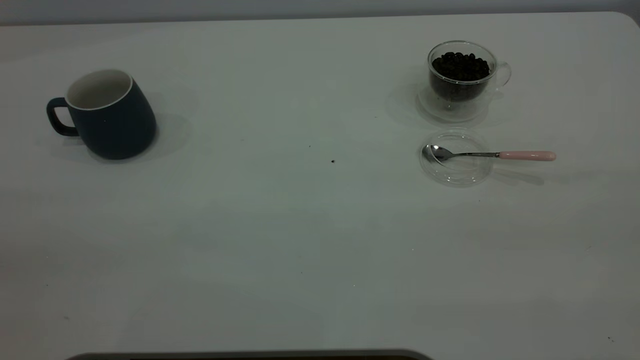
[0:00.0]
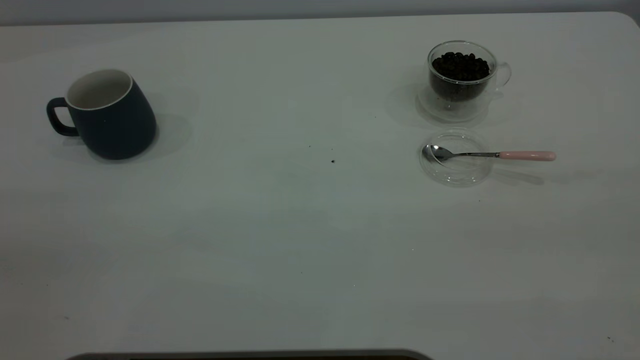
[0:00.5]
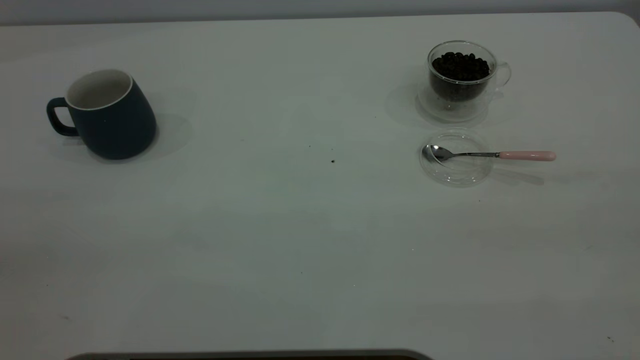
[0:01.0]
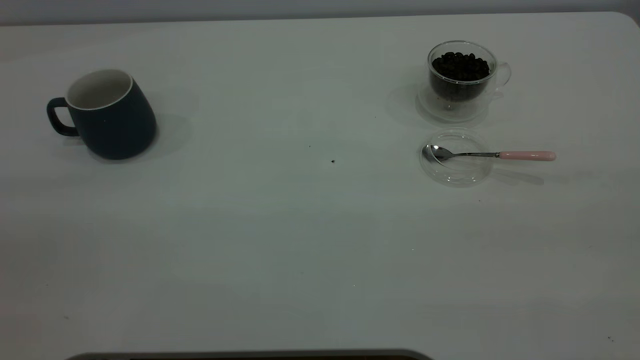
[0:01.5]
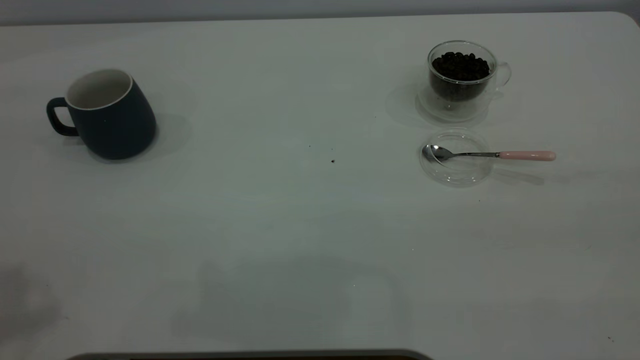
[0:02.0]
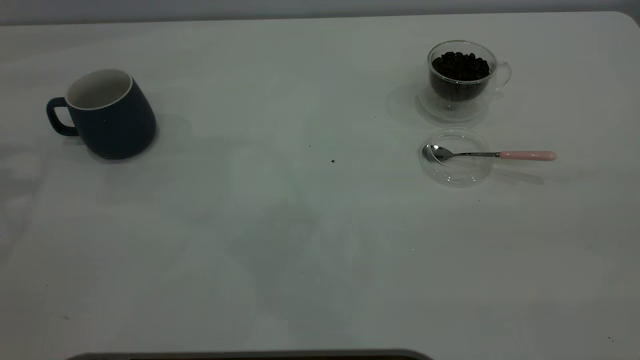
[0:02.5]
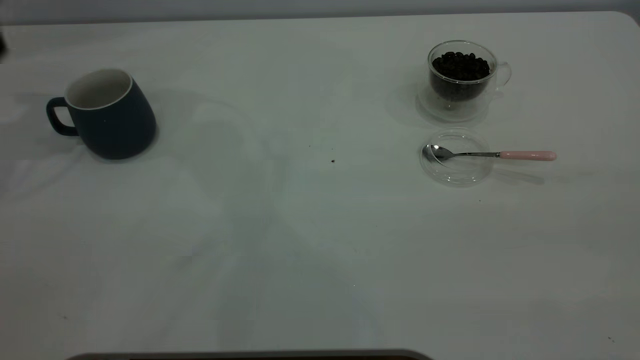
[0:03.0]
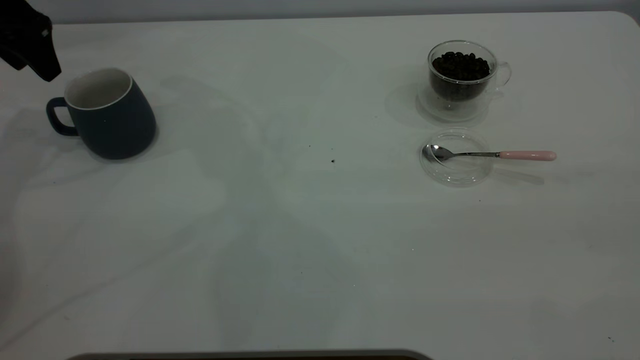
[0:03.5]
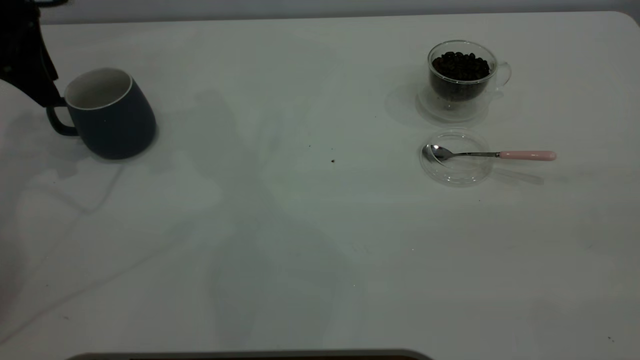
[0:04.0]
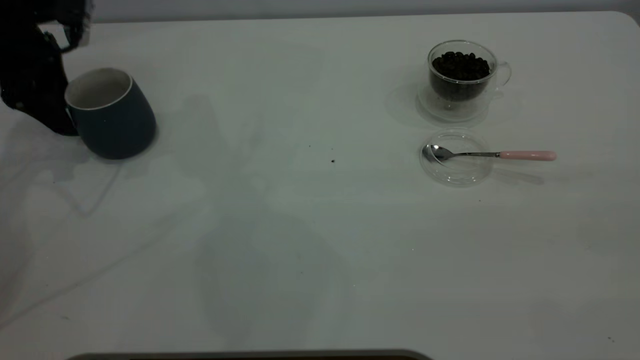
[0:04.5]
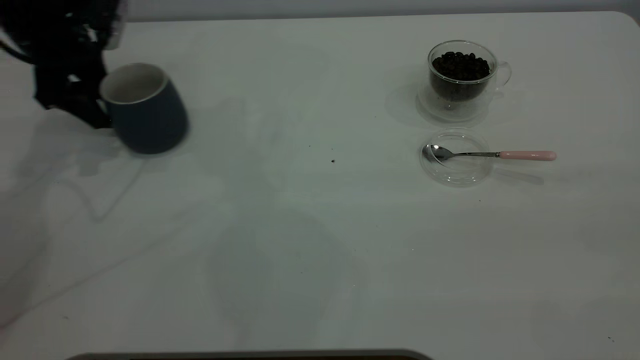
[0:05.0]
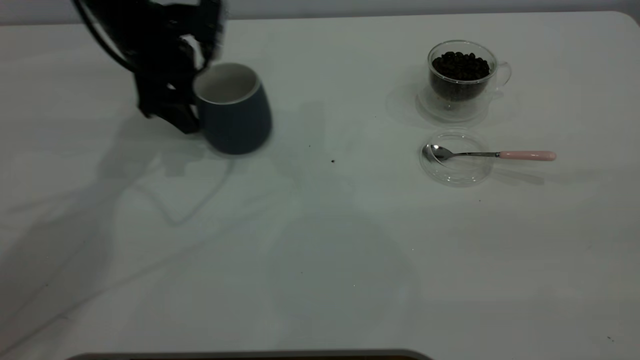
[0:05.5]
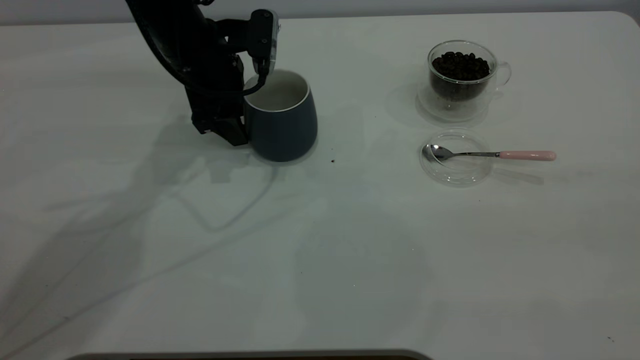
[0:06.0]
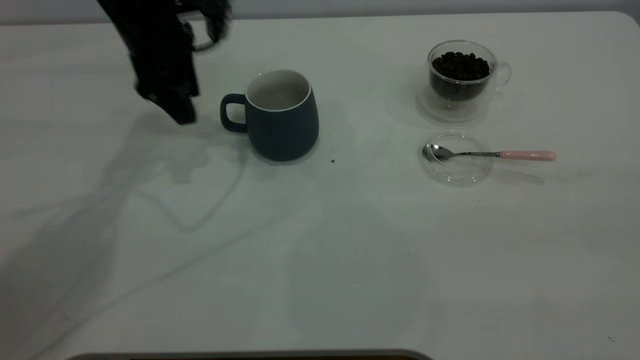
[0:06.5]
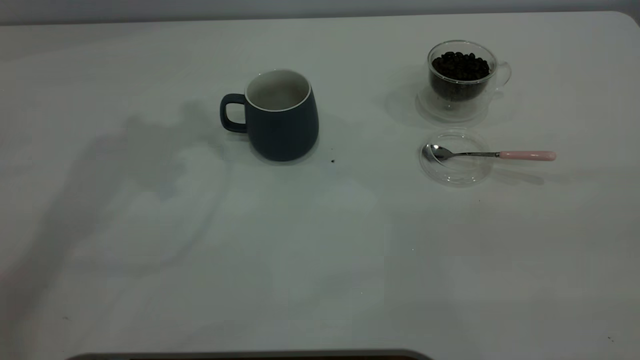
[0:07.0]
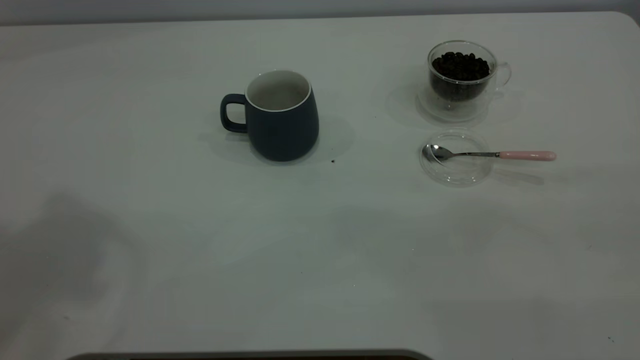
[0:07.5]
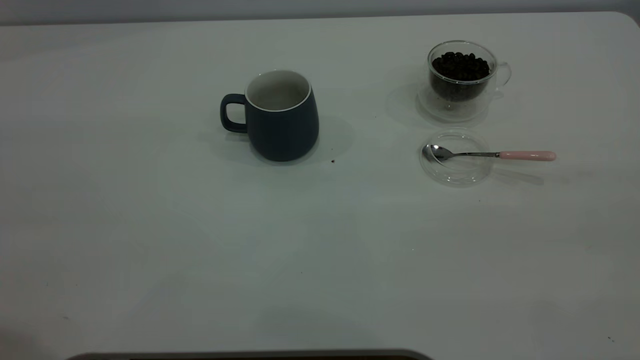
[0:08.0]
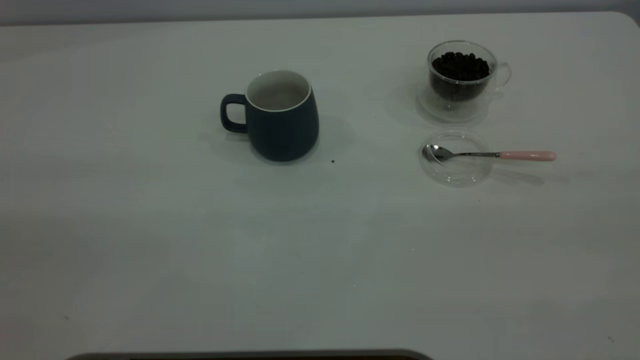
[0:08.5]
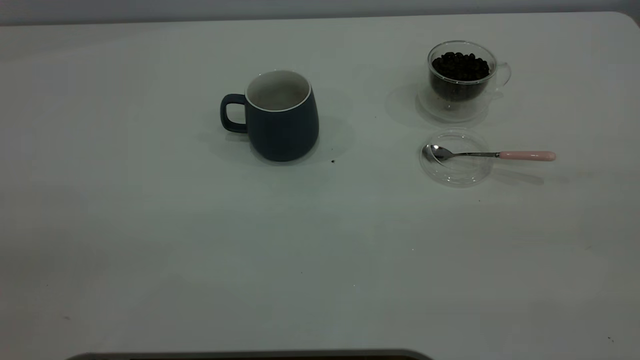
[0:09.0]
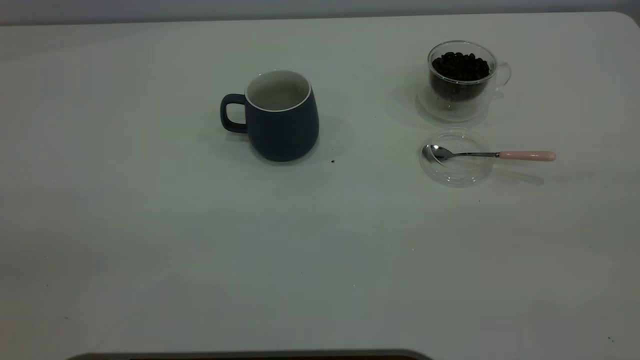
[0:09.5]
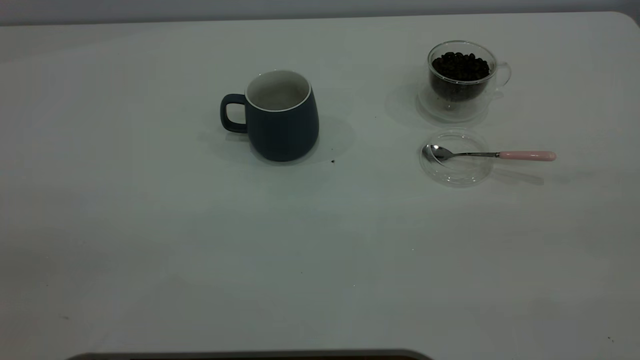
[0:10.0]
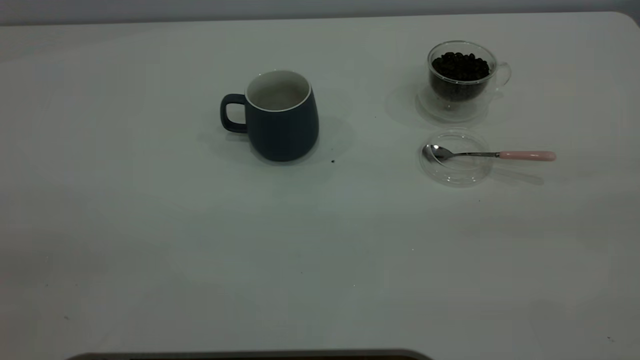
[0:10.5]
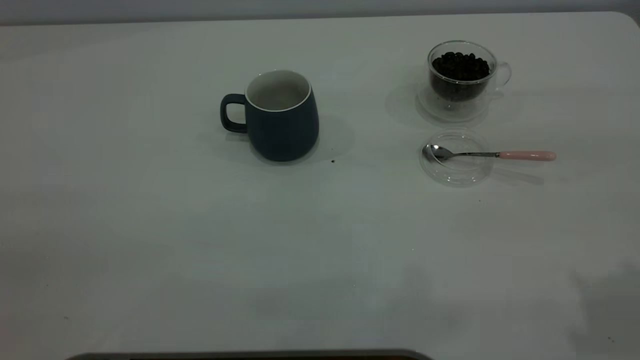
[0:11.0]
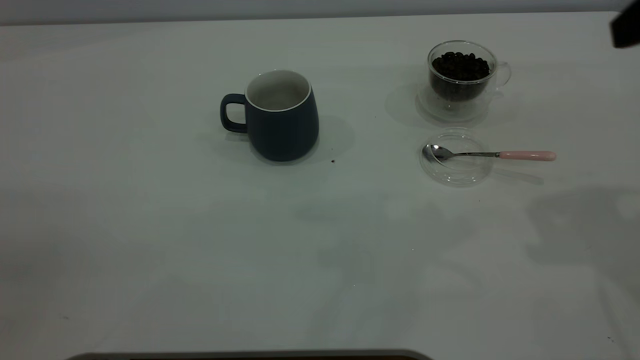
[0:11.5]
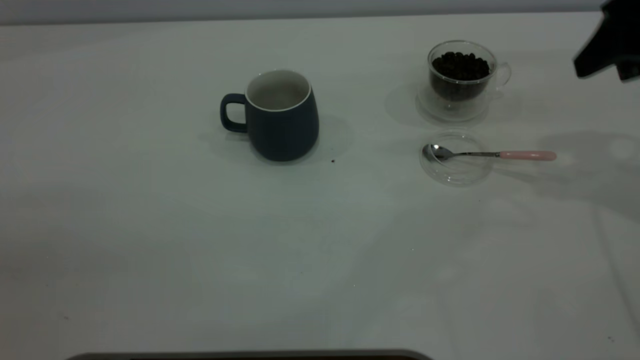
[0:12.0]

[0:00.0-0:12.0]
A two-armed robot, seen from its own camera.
Task of the whole recording: the left gripper place the grey cup in the center of the table, the right gripper take the pink spoon from the cup lid and scoop out the coffee beans from the coffee cup and put them into the grey cup, the right gripper put the spoon back into the cup lid.
Step, 0:00.0 to 0:06.0: Move the cup to the center of view.
0:02.0 to 0:04.0: The left gripper goes some 35 cm forward and downward, and opens.
0:04.0 to 0:06.0: The left gripper goes approximately 20 cm to the right.
0:06.0 to 0:08.0: The left gripper goes approximately 40 cm backward and upward.
0:10.0 to 0:12.0: The right gripper heads forward and downward, covering approximately 35 cm.

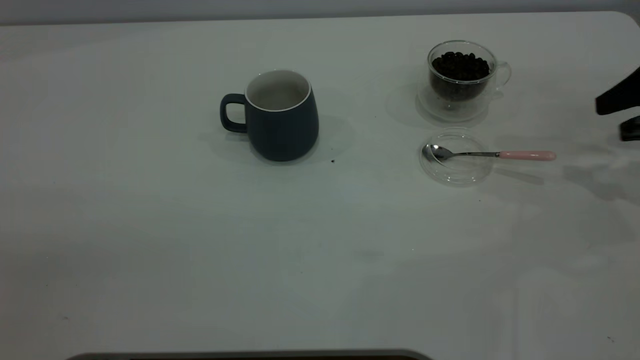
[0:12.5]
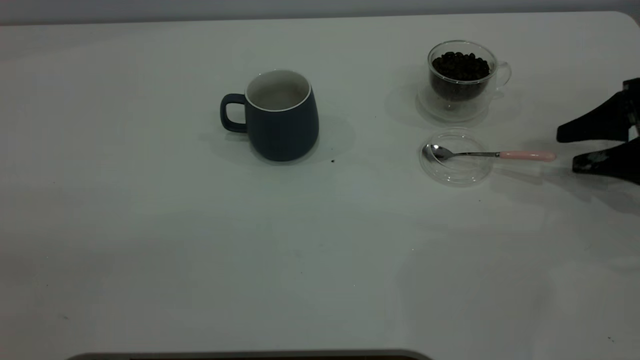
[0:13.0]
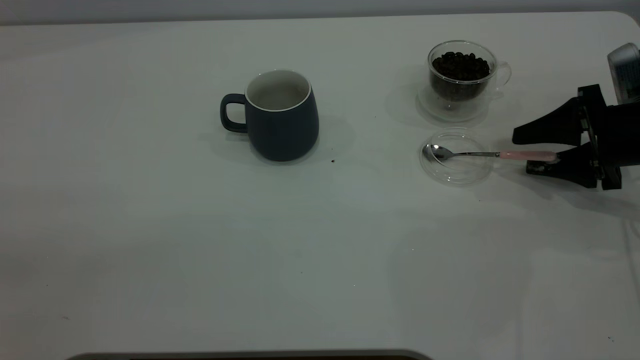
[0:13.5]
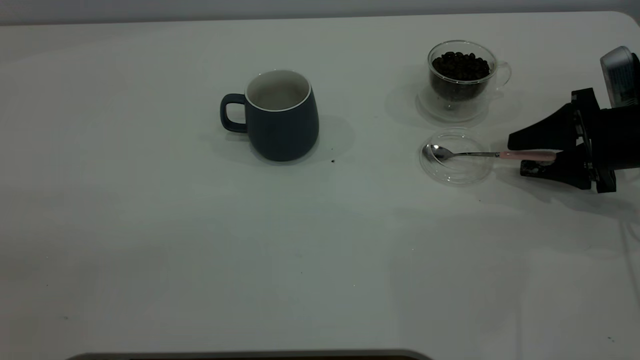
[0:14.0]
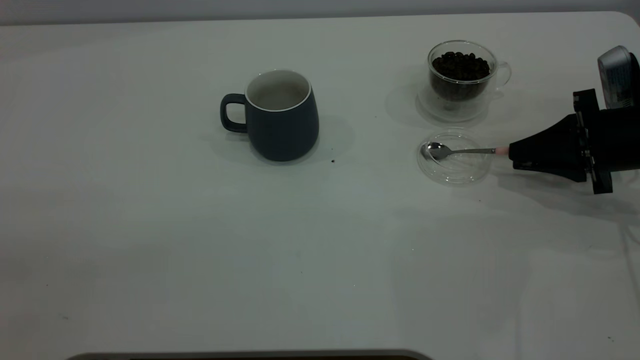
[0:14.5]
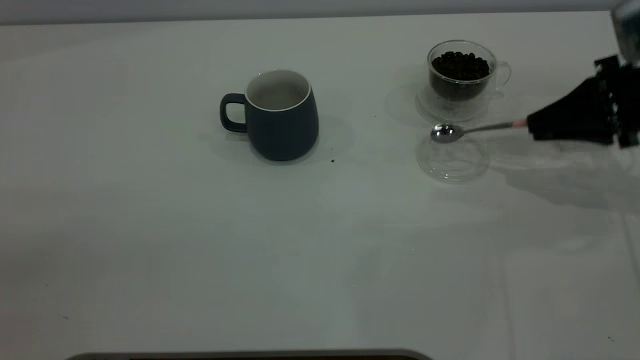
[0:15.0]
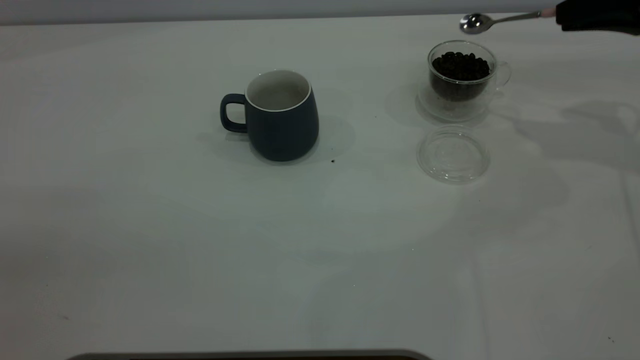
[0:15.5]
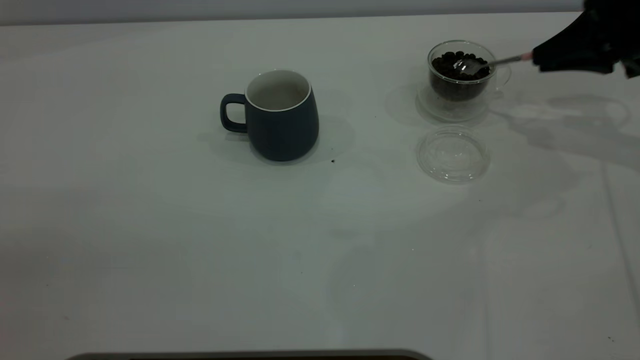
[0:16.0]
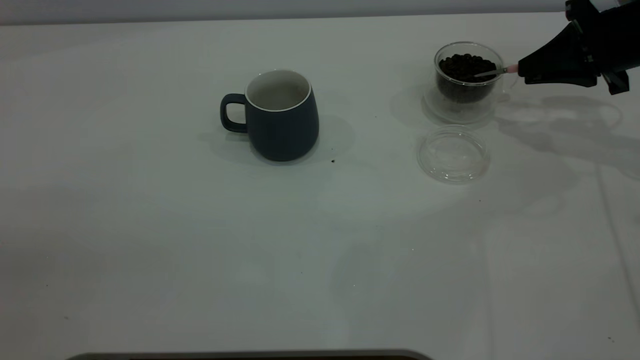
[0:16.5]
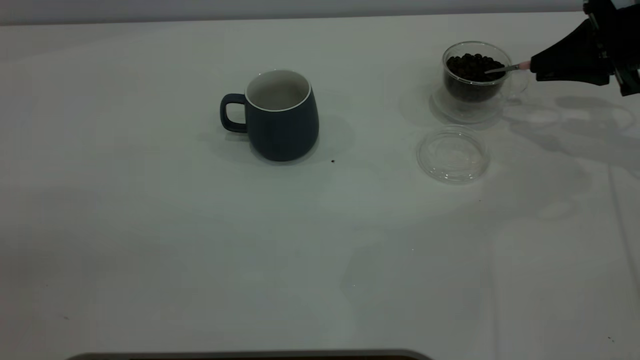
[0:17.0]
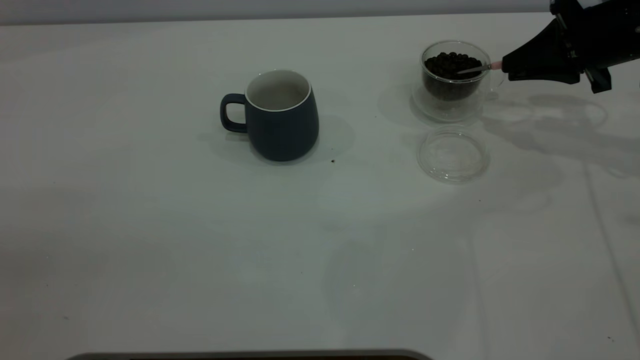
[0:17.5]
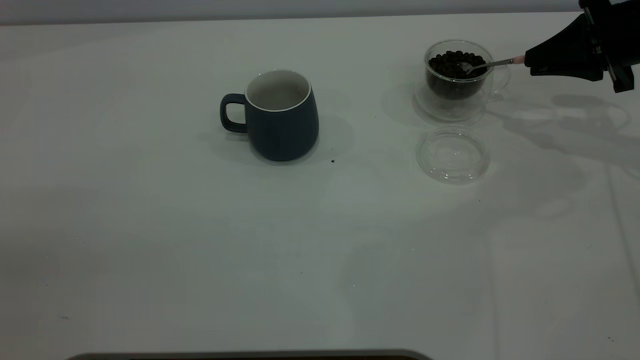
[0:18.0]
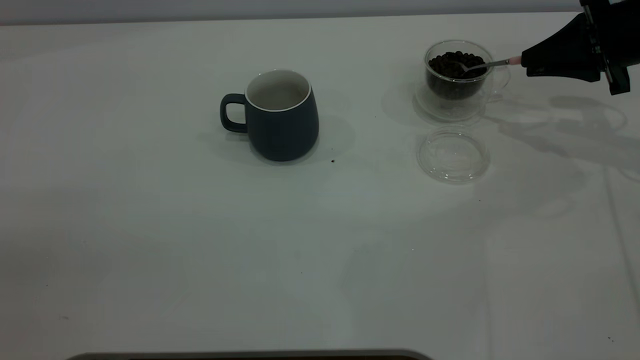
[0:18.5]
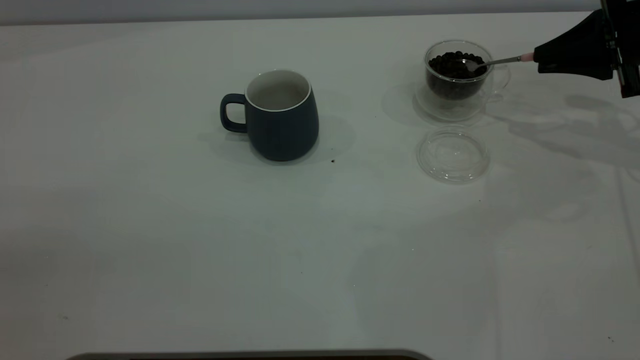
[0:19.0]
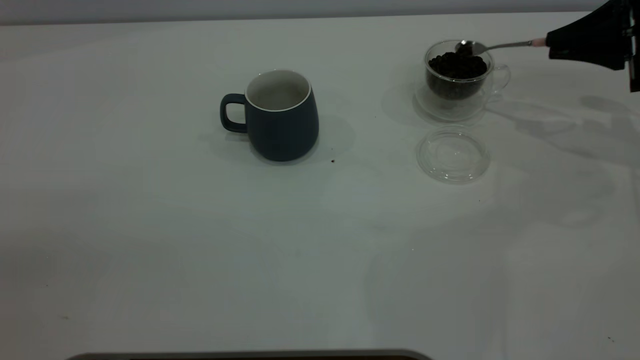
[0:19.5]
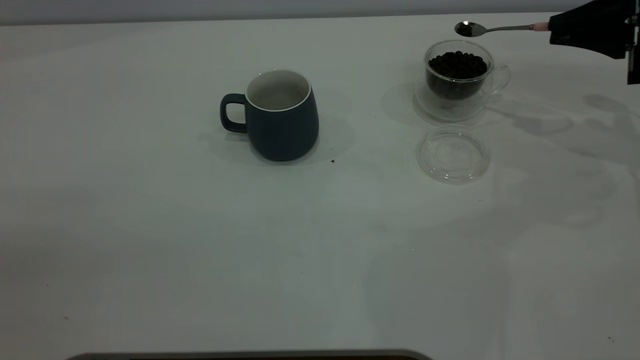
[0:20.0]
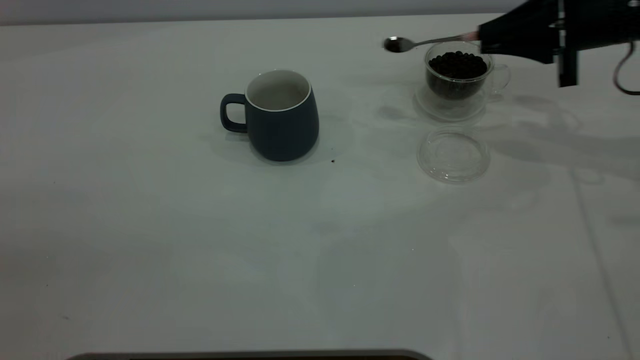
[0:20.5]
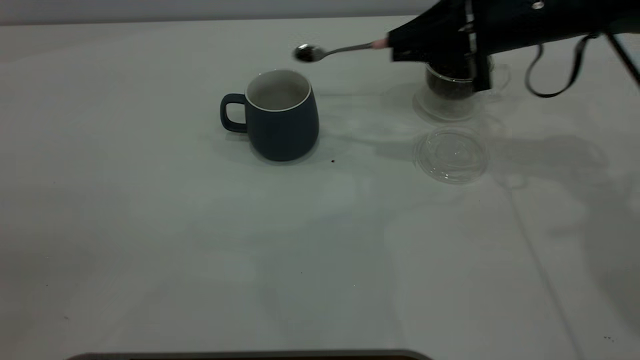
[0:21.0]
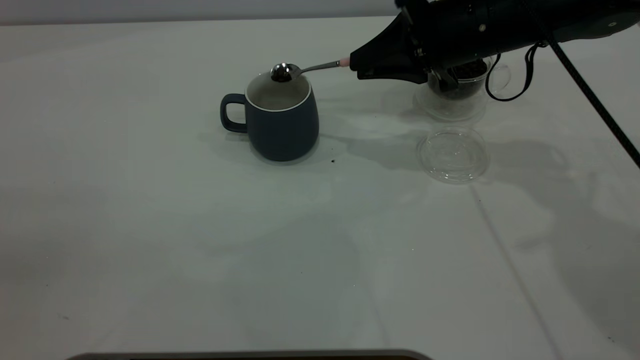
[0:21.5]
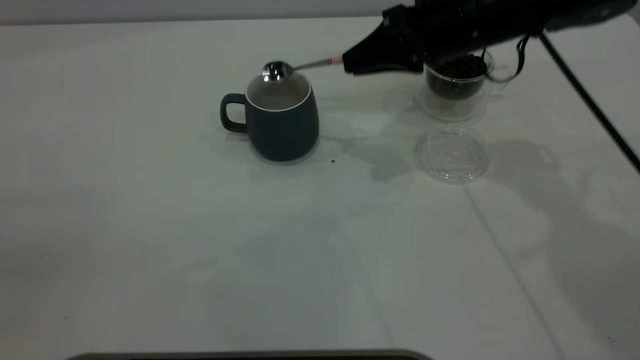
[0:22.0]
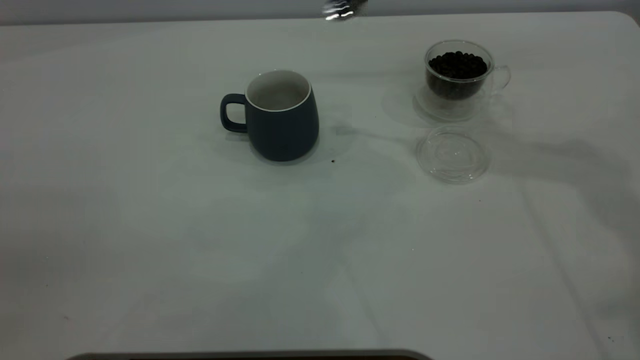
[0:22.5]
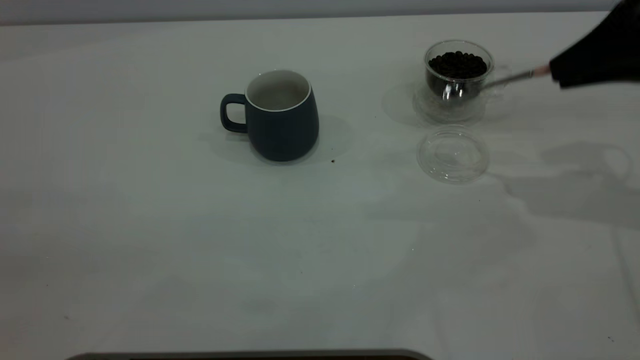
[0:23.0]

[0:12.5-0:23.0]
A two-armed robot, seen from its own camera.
Task of the whole recording: the left gripper place the grey cup in the center of the table, the right gripper take the pink spoon from the cup lid and scoop out the coffee beans from the coffee cup and put them into the grey cup, the right gripper put the spoon back into the cup lid.
Step, 0:12.5 to 0:15.0: Pick up the spoon.
Step, 0:15.5 to 0:22.0: Scoop a spoonful of beans into the cup.
0:12.5 to 0:14.5: The right gripper heads downward and to the left, covering about 10 cm, and closes up.
0:14.5 to 0:16.5: The right gripper travels forward and upward by approximately 10 cm.
0:16.5 to 0:19.0: The grippers make only small movements.
0:19.0 to 0:21.0: The right gripper is displaced to the left by about 15 cm.
0:21.0 to 0:23.0: The right gripper heads to the right and backward, covering about 15 cm.
